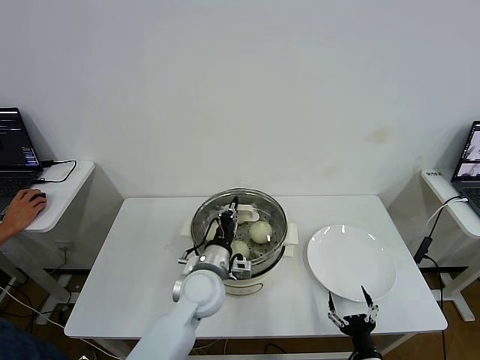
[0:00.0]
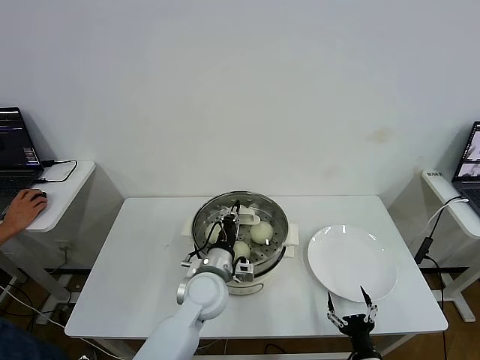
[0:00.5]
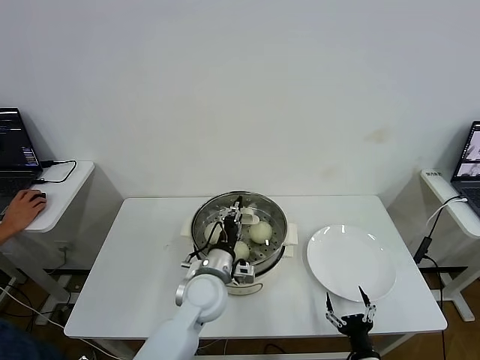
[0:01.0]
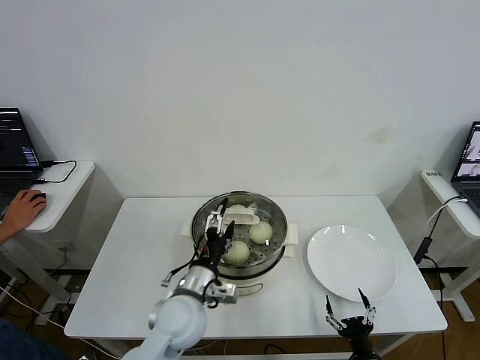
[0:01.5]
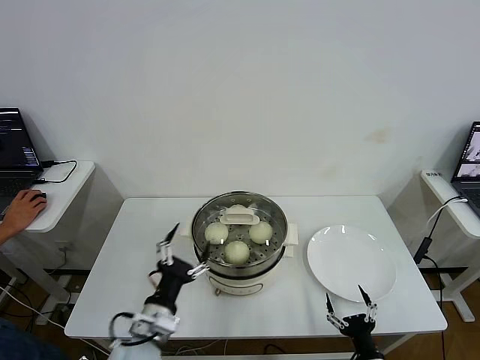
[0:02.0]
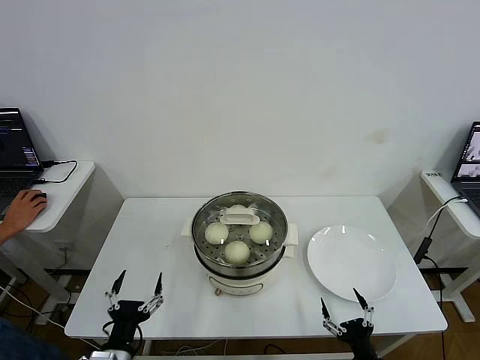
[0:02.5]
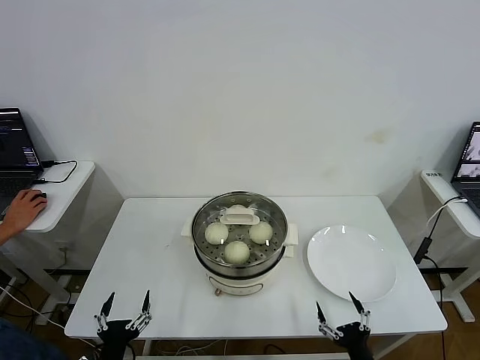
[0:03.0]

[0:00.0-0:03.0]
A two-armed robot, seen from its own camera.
0:00.0 to 0:01.5: The left gripper shifts by approximately 5 cm, and opens.
0:01.5 to 0:03.0: The left gripper is displaced backward, to the left and downward by some 25 cm. The right gripper moves upward, about 5 cm.
